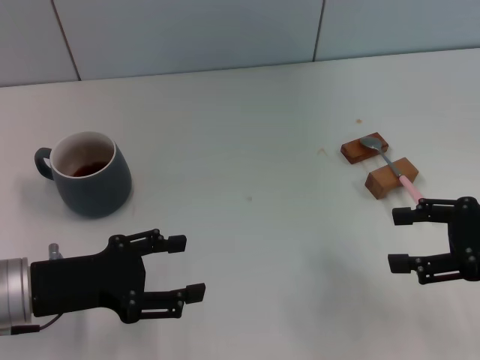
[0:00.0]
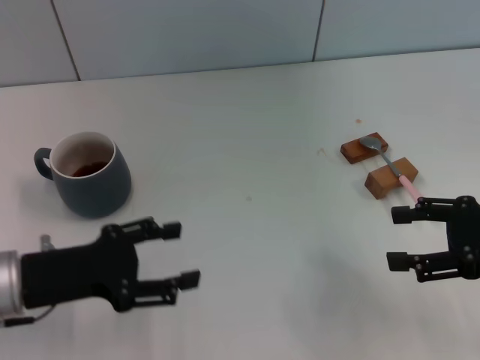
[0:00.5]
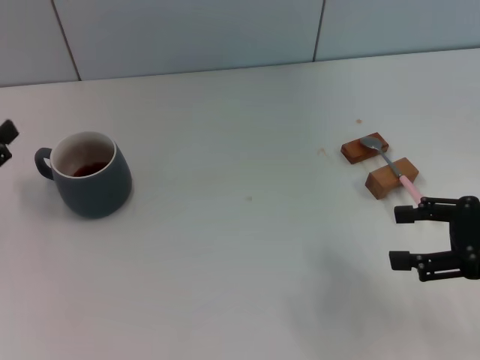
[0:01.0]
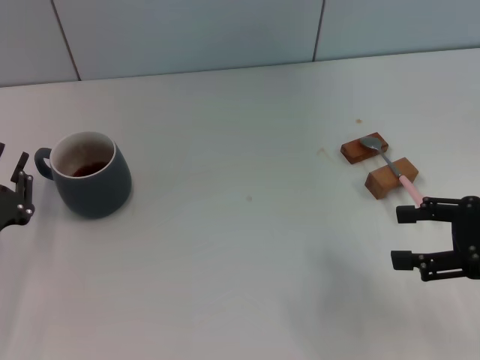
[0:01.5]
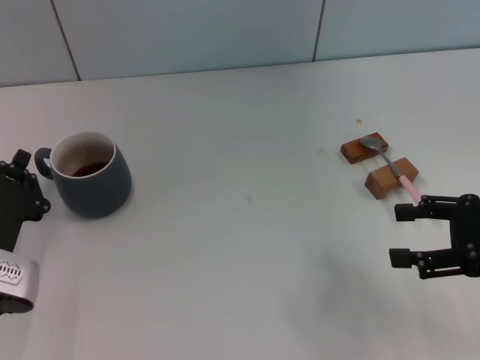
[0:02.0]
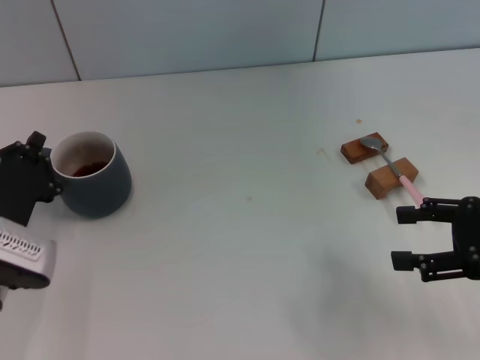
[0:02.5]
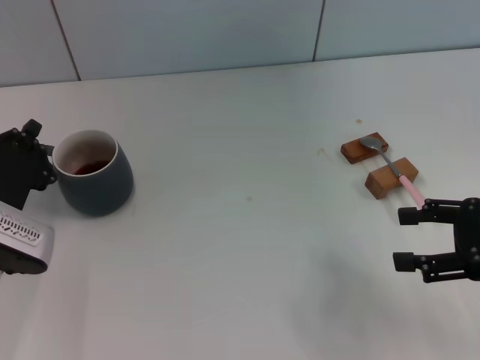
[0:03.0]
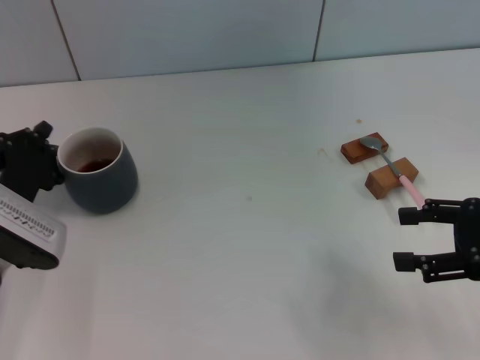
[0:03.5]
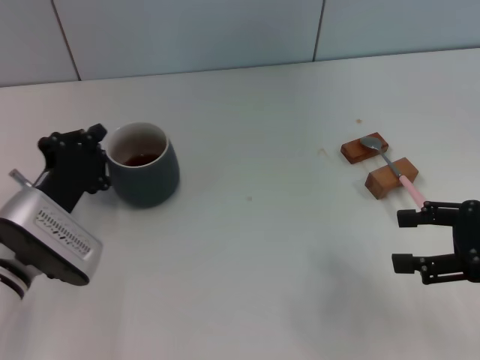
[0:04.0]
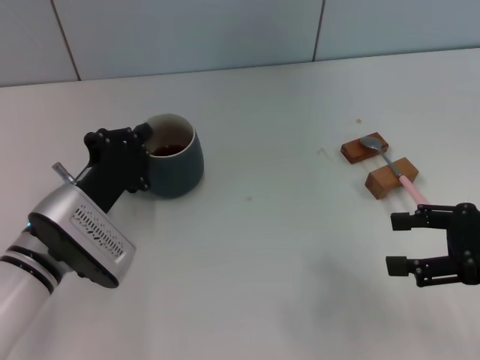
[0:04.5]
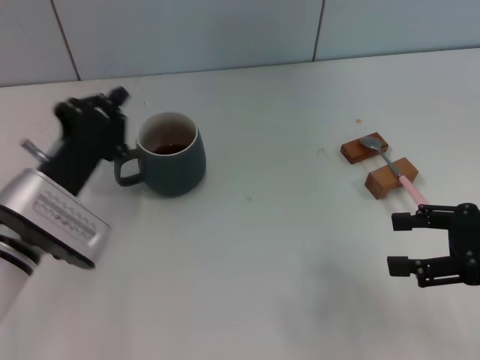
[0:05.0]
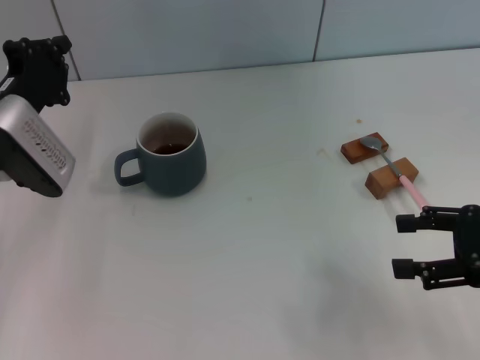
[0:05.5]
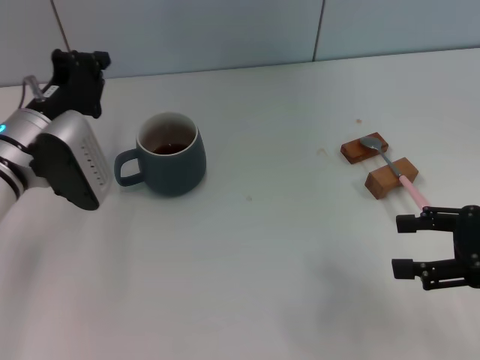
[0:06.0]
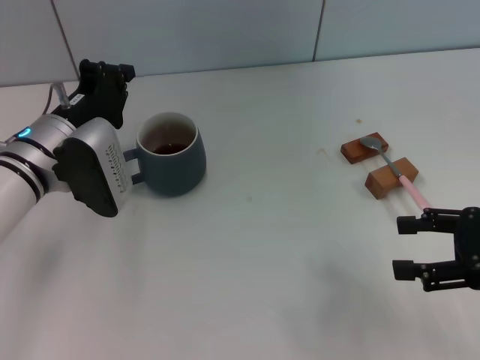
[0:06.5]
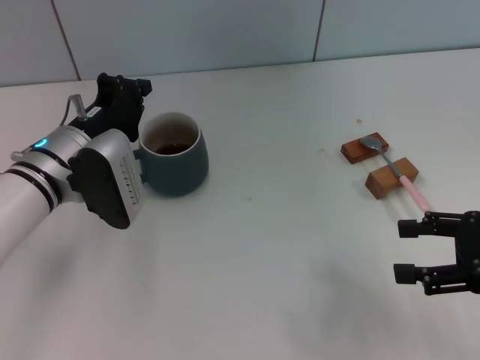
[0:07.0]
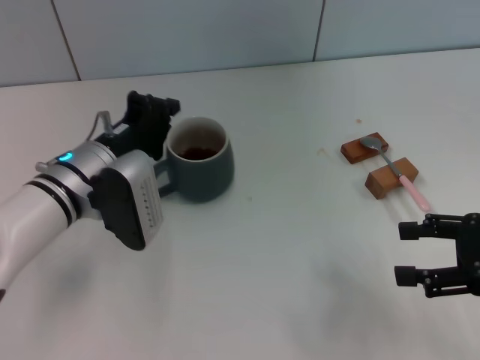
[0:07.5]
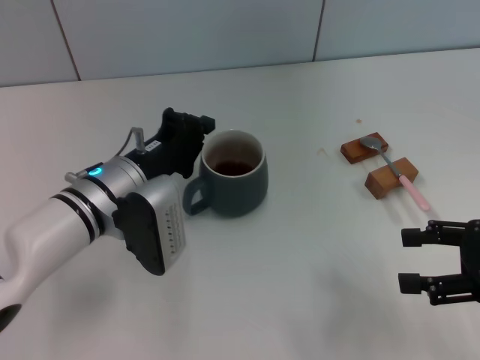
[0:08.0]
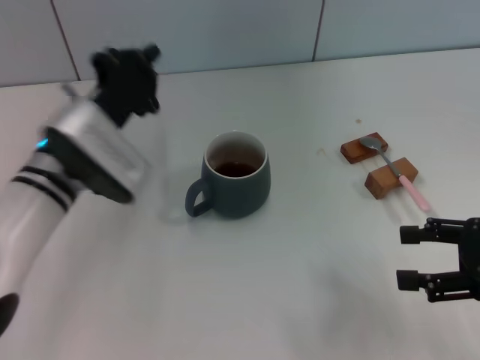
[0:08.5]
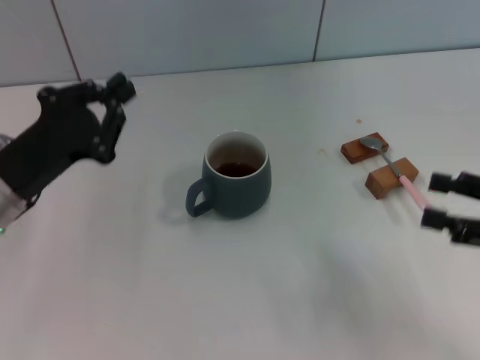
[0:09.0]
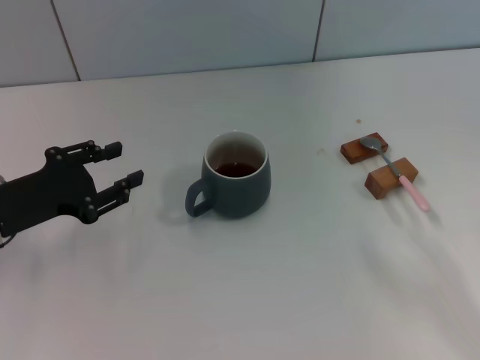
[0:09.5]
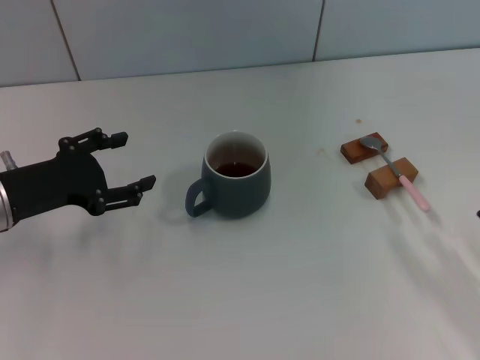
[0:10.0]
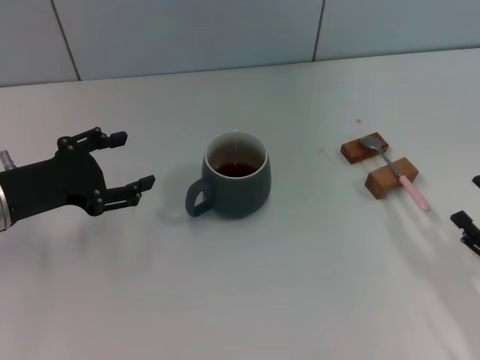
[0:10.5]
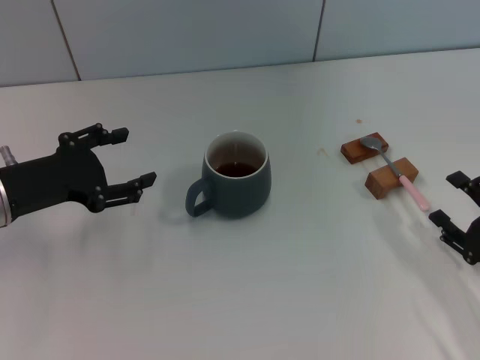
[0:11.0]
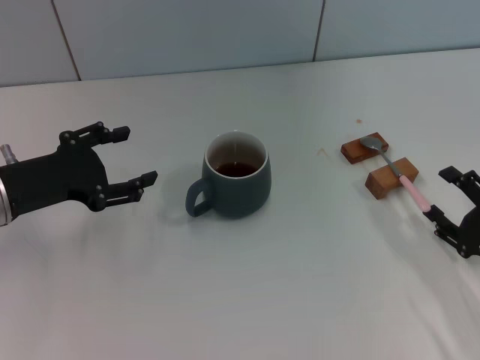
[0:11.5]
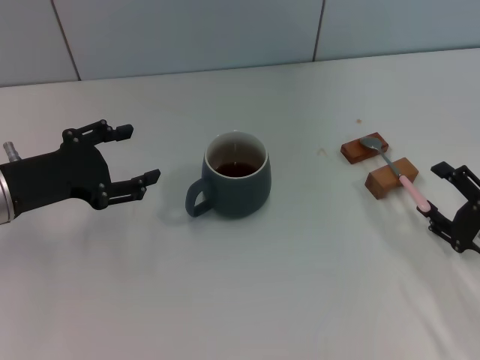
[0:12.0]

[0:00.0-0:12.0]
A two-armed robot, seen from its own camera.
Task of the whole recording: Move the grey cup to the center, lift the pink spoon, stir it three times in the cup, and put the spoon into the cup.
Step, 0:00.0 to 0:08.5: Move the cup with coffee to the center of view with the left gripper.
0:00.0 to 0:02.0: The left gripper goes about 5 cm downward, goes to the left and returns, some 10 cm each way, and closes.
0:02.0 to 0:04.0: The left gripper changes place by about 5 cm.
0:04.0 to 0:06.0: The left gripper is displaced forward and upward by some 10 cm.
0:06.0 to 0:08.0: The left gripper goes some 5 cm to the right.
0:08.0 to 0:10.0: The left gripper shifts approximately 10 cm to the left, and opens up. Meanwhile the right gripper travels downward and backward by roughly 10 cm.
0:10.0 to 0:12.0: The right gripper travels forward by about 5 cm.

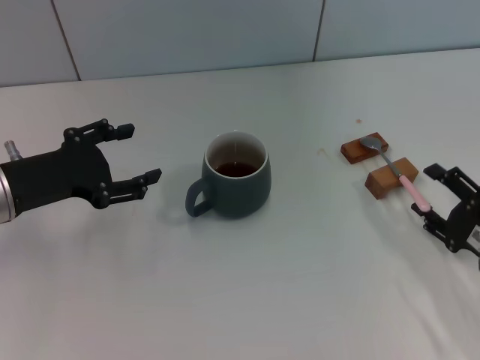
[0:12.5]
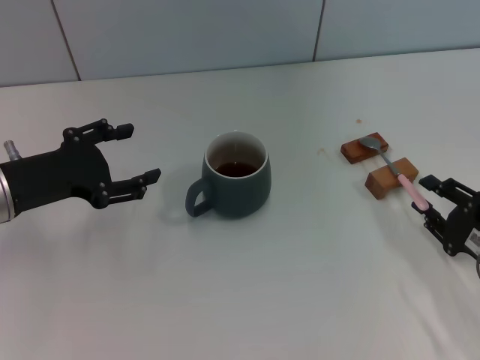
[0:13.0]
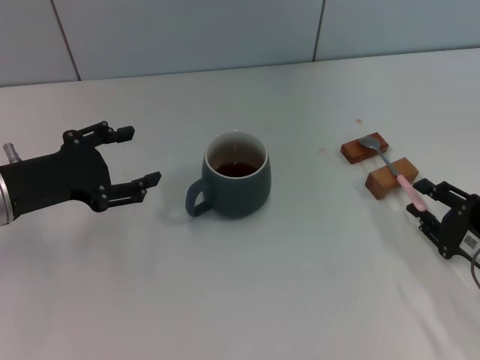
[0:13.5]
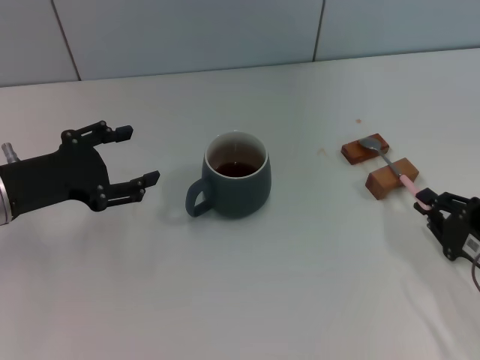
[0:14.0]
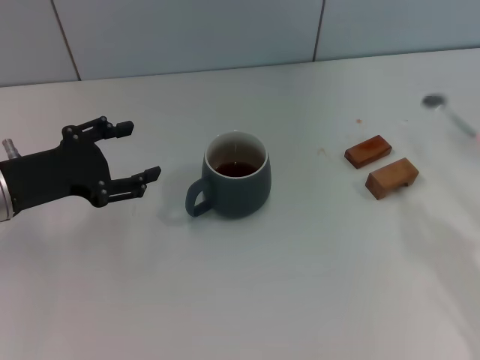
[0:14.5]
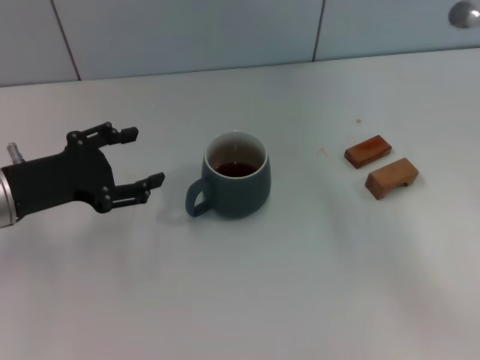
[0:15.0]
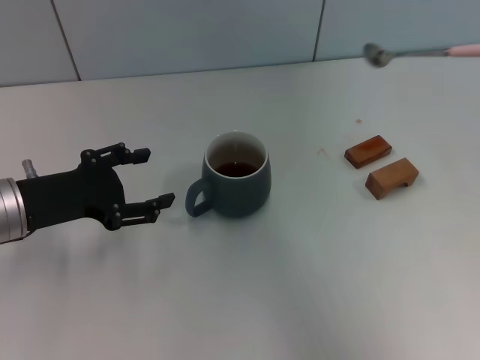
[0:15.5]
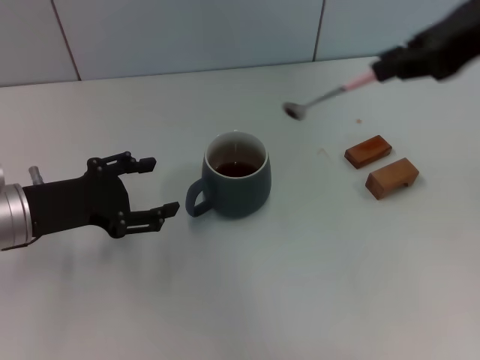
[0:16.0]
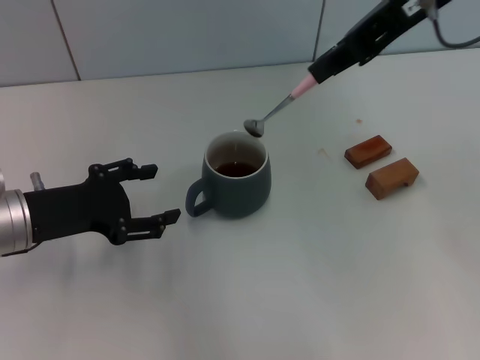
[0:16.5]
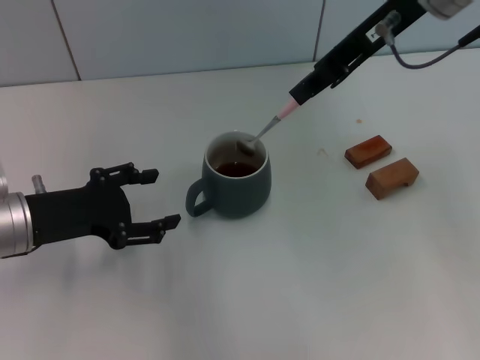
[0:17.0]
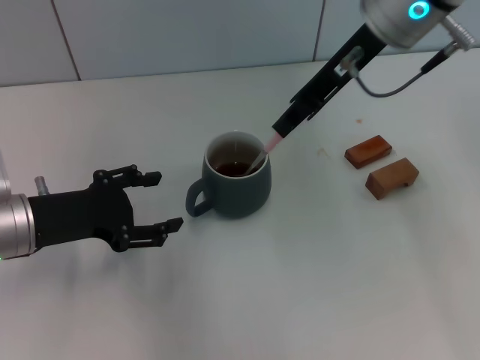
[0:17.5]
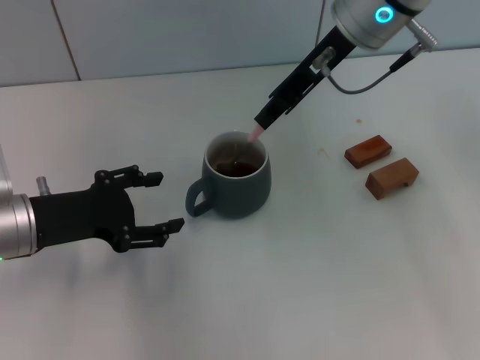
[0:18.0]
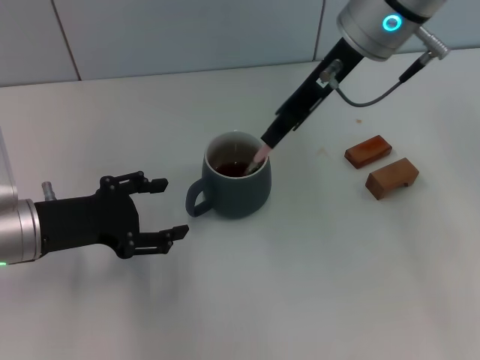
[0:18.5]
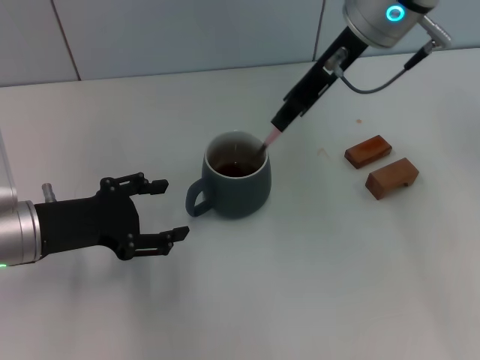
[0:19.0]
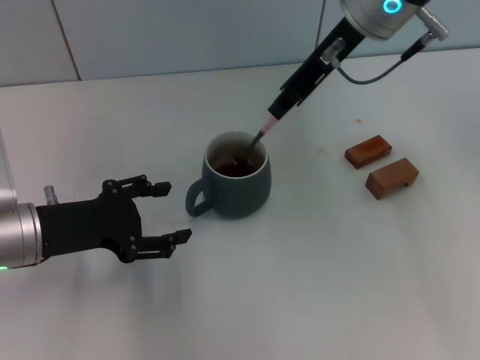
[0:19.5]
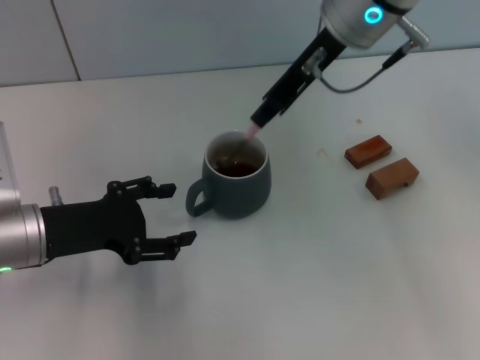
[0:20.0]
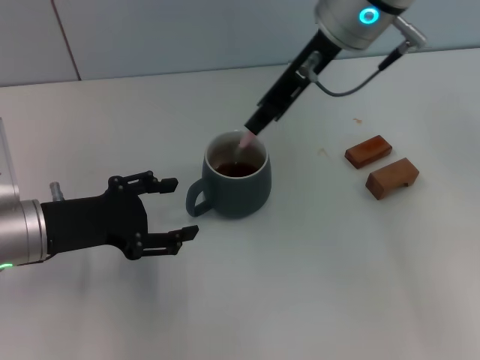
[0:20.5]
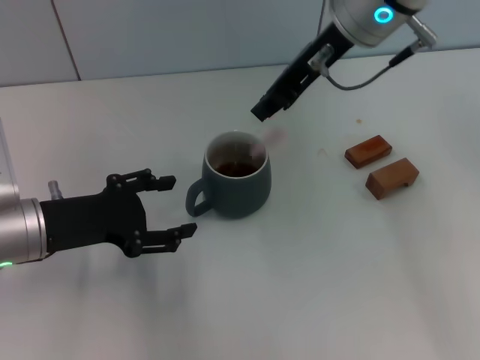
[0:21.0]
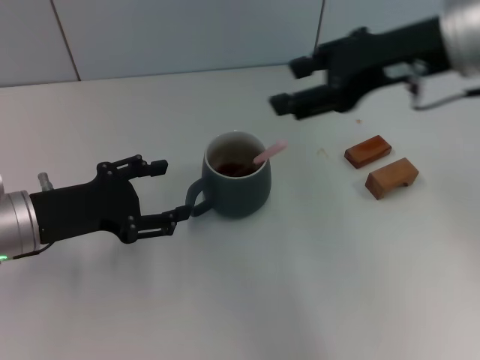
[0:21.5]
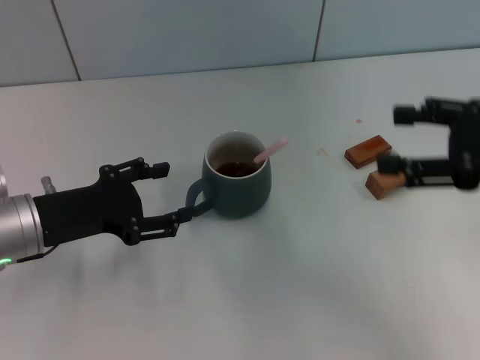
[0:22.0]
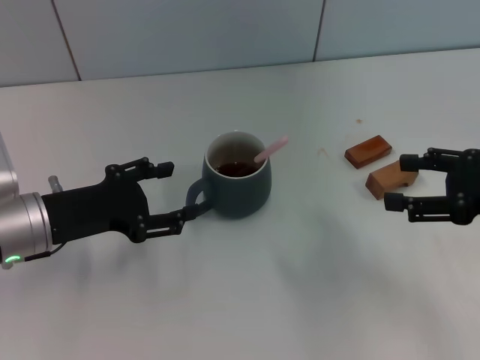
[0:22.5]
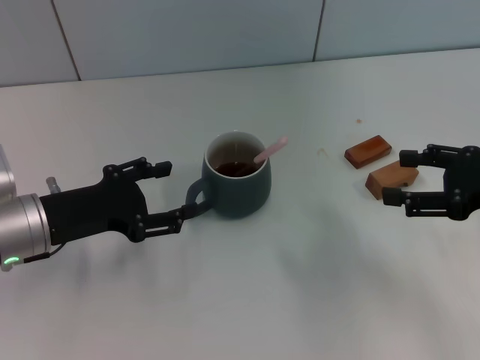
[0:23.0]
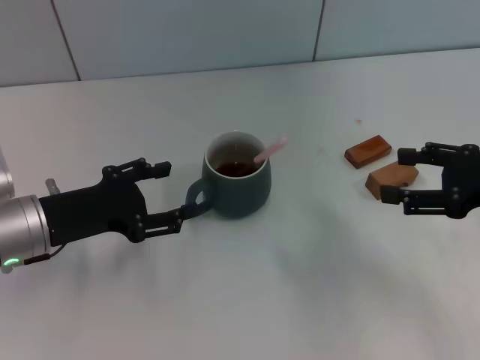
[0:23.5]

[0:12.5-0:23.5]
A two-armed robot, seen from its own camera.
Task of the whole recording: Move the grey cup to the center, lift the pink spoon, stir it three times in the cup, and put the spoon into the cup.
Step, 0:12.5 to 0:14.5: Pick up the spoon with the right gripper.
Step, 0:15.0 to 0:21.5: Stir the coffee in the cup with the right gripper.
0:12.5 to 0:14.5: The right gripper moves about 5 cm, and closes its fingers.
0:14.5 to 0:16.0: The right gripper heads upward and to the left, covering some 35 cm.
0:16.0 to 0:18.0: The right gripper travels forward, to the left and downward by approximately 15 cm.
0:18.0 to 0:20.0: Both grippers stay about where they are.
0:20.0 to 0:21.5: The right gripper is displaced backward and to the right by about 10 cm, and opens its fingers.
0:21.5 to 0:23.5: The right gripper goes about 20 cm downward, to the right and backward, and opens its fingers.

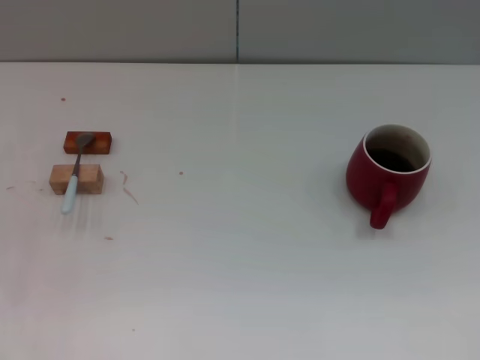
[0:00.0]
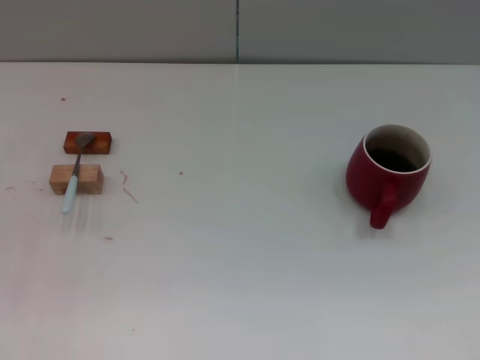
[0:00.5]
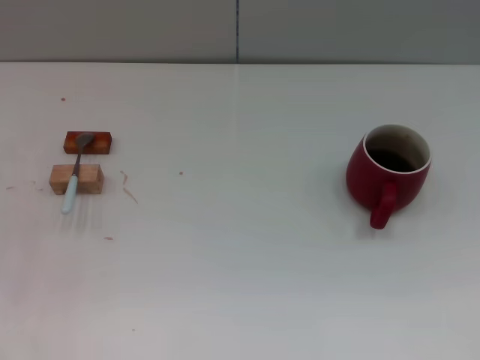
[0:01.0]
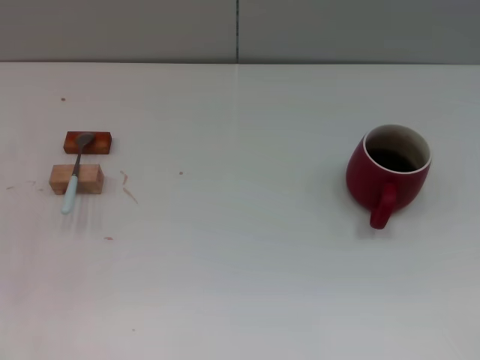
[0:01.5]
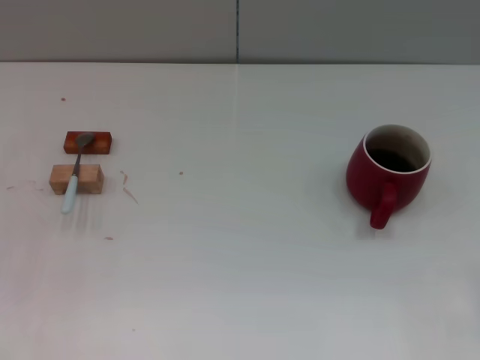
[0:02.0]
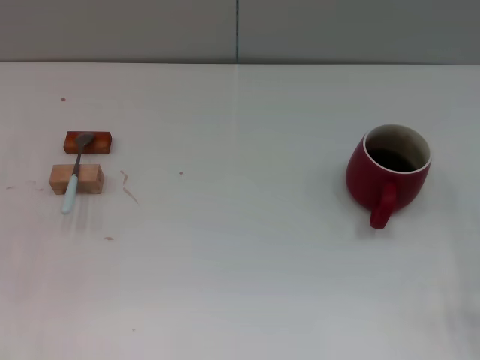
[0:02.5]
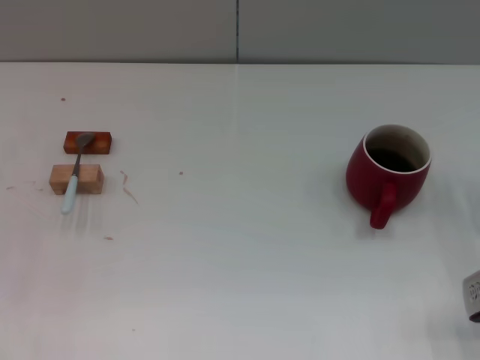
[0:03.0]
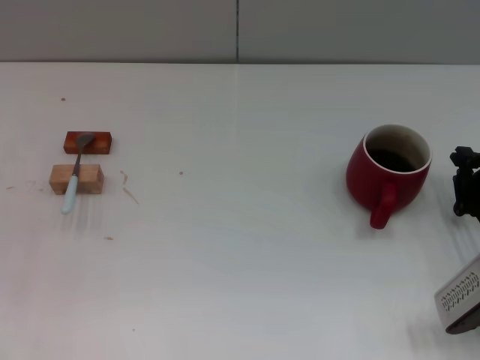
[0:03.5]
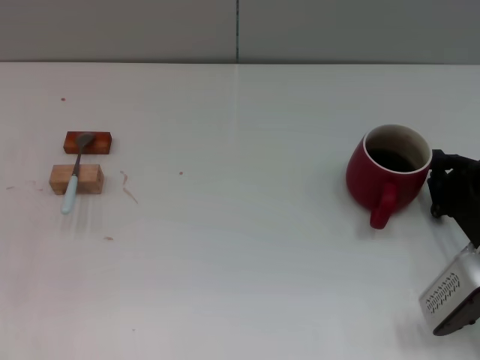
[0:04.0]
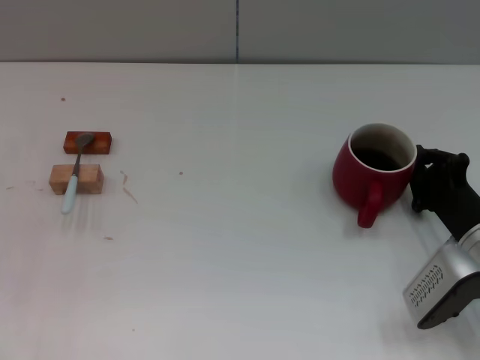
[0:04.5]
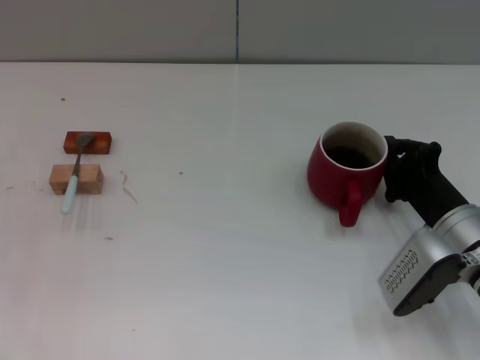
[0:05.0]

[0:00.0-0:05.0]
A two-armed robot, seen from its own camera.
Task of the whole recording: Move the red cup to the center, lift the blue spoon, stir it three times in the cup, and put the spoon into the cup.
0:02.5 to 0:05.0: The right gripper is displaced to the left by roughly 10 cm.
